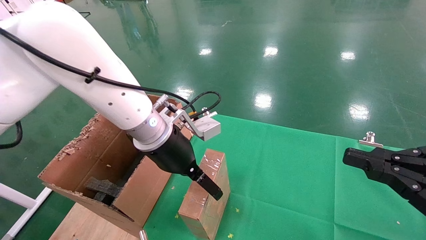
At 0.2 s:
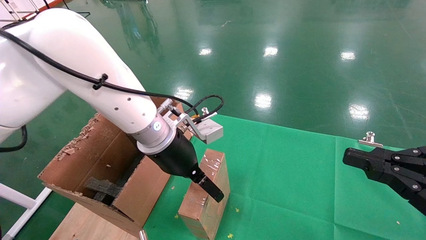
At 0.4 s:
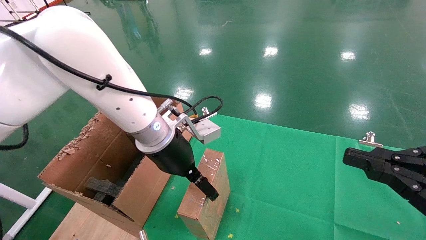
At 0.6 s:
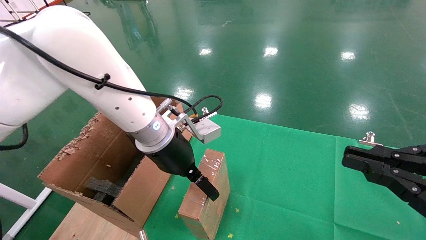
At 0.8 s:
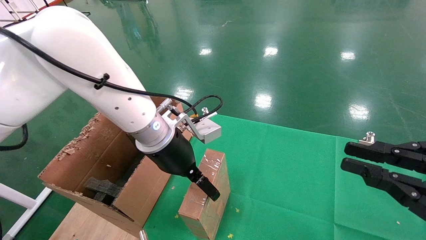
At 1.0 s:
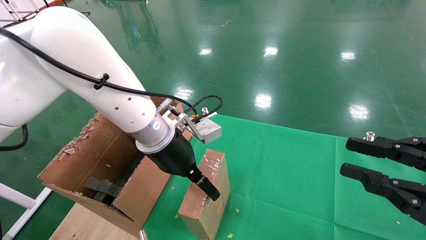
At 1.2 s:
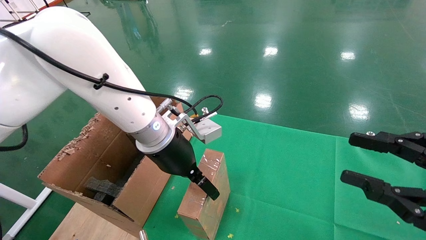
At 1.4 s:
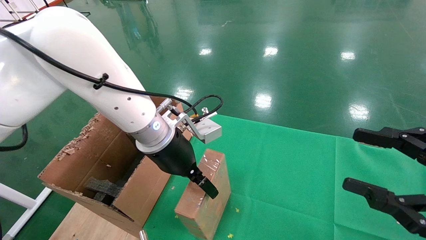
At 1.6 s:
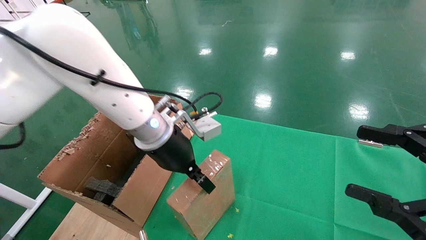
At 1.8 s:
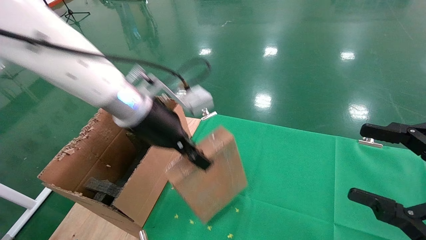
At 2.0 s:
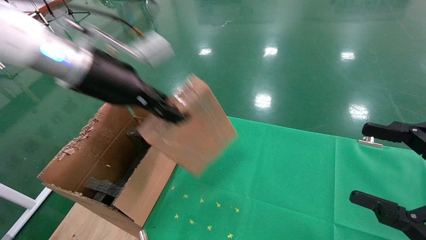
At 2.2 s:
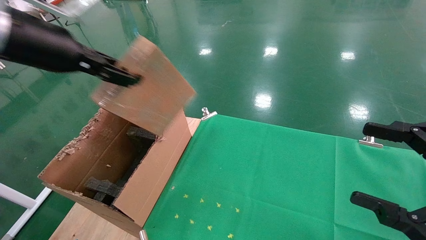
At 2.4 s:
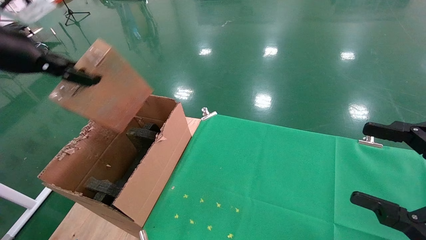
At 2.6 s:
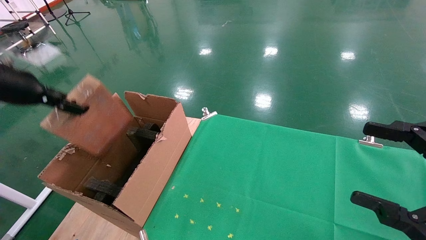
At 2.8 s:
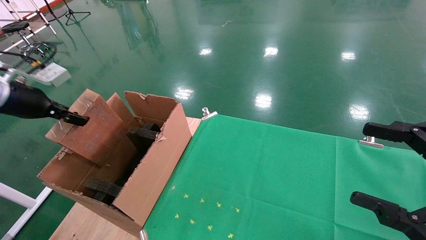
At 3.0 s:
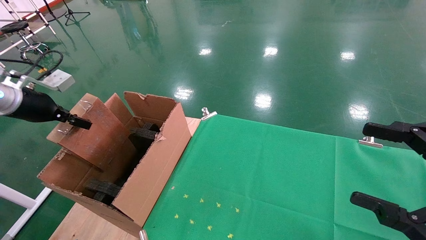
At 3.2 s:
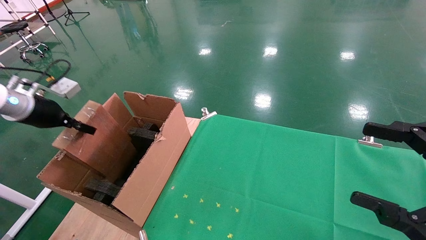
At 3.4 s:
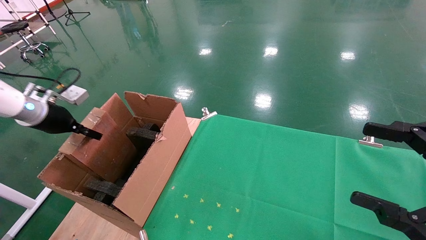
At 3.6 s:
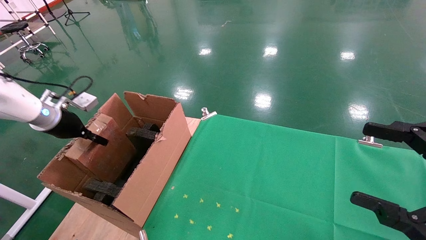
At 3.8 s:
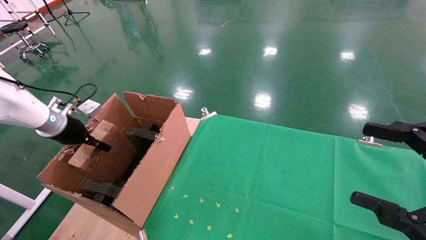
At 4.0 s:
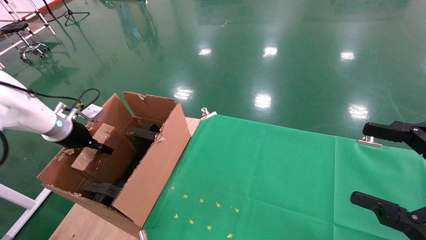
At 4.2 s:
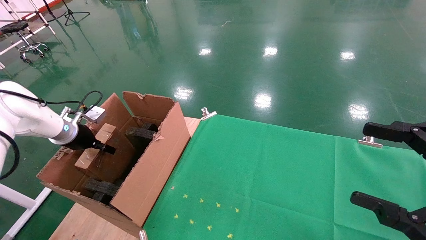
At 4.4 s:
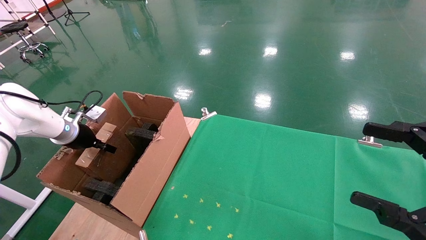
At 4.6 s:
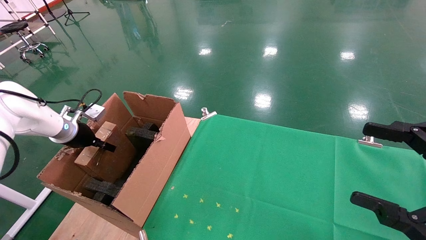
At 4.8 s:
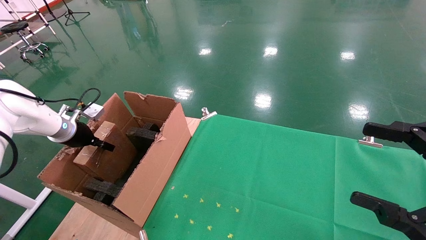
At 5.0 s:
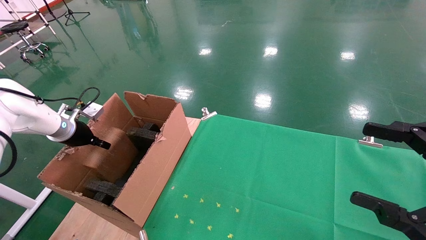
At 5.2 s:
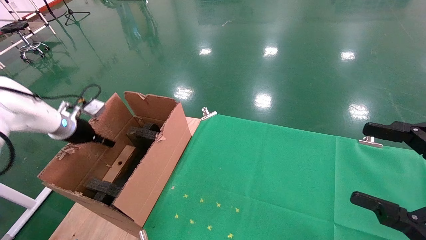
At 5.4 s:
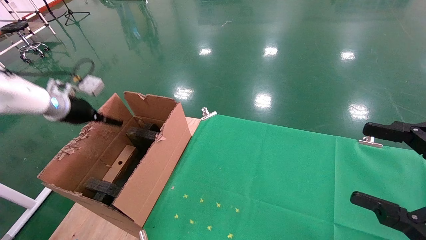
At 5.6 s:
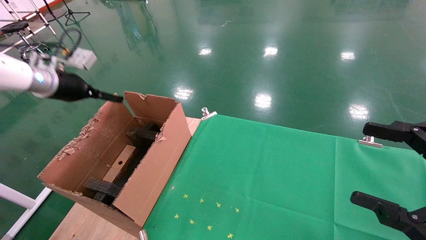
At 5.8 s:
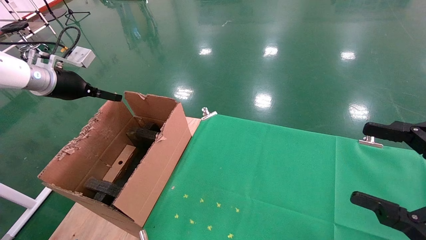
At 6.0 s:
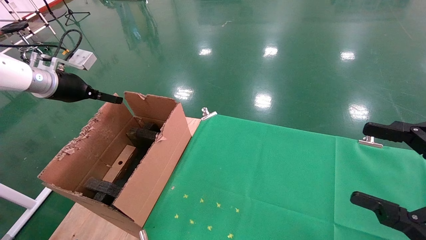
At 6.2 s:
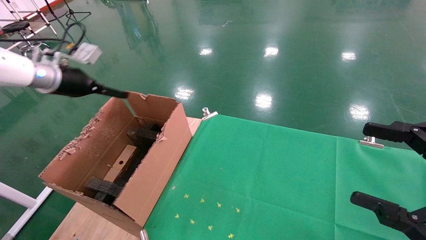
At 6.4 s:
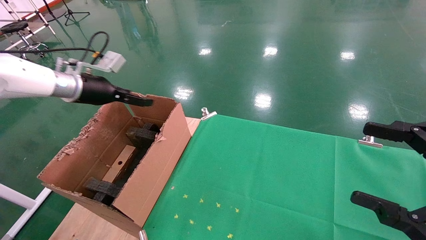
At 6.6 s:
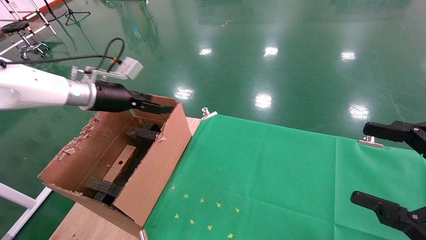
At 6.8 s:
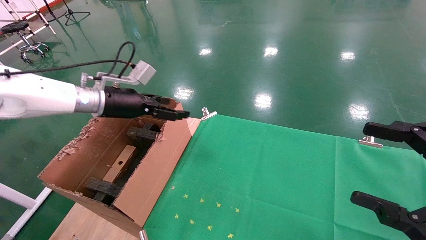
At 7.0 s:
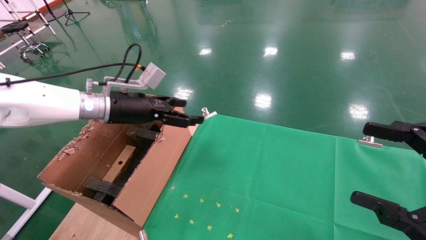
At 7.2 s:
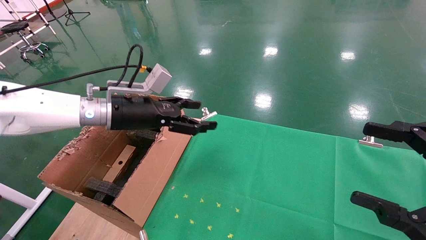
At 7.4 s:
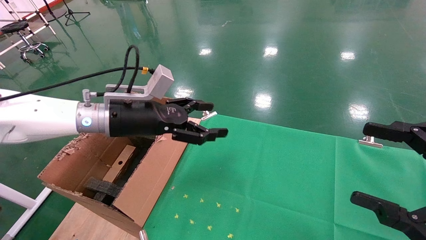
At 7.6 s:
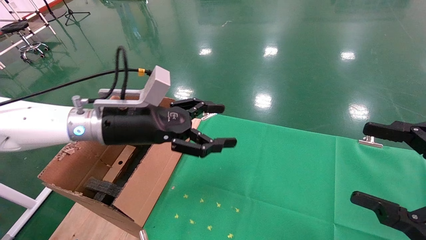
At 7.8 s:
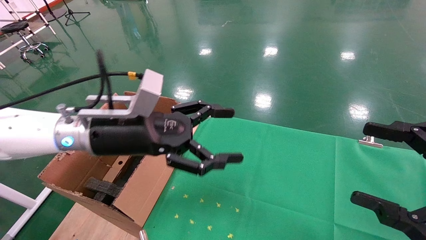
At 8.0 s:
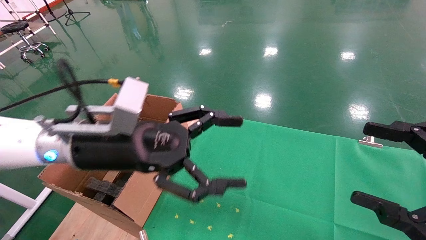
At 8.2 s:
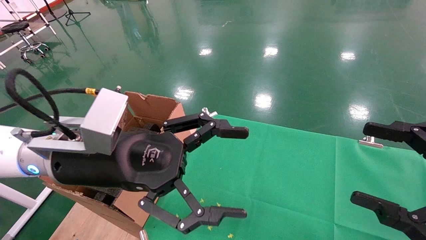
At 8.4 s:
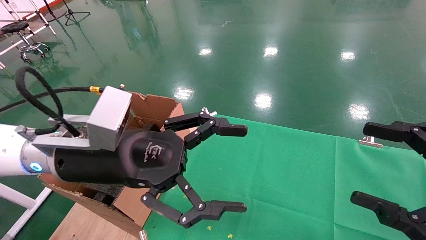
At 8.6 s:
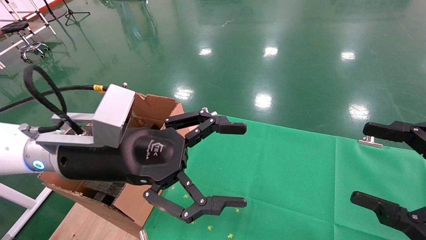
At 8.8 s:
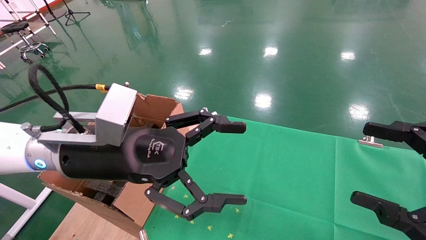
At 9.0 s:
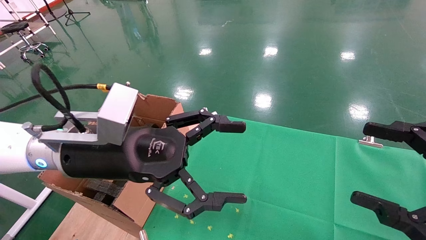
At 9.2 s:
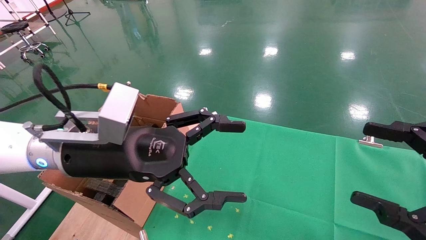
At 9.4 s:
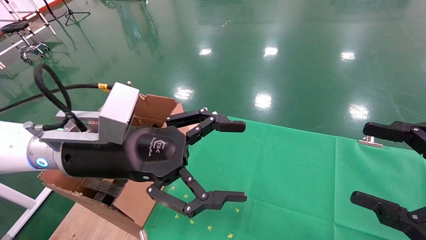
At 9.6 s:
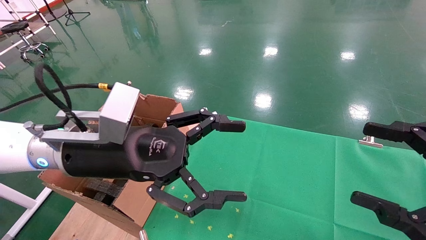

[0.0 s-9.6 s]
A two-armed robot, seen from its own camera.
Task of the whole recording: using a robotic arm to pick up a cardboard box and palace it the carton.
Step, 1.6 to 5.0 s: Place the mouse and the power cord paper box into the container.
0.0 to 1.6 s: The right gripper opens up, while the left gripper closes up.
1.6 to 3.2 s: The left gripper is displaced to the left by approximately 35 cm, and closes up.
3.2 to 4.8 s: The left gripper shifts some 10 cm downward and forward.
4.8 to 6.4 s: The left gripper is displaced upward and to the right by roughly 15 cm, and opens its fingers.
6.4 to 8.0 s: The left gripper moves to the right and backward, roughly 25 cm.
8.0 to 9.6 s: The grippers stay close to where they were, moving slightly.

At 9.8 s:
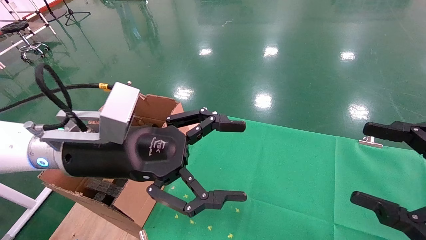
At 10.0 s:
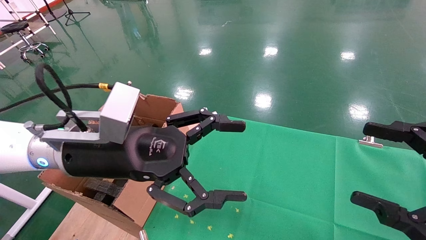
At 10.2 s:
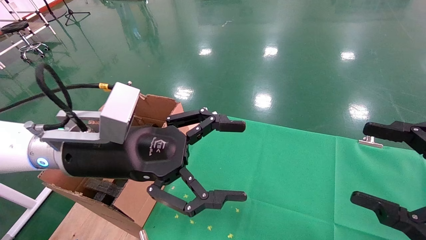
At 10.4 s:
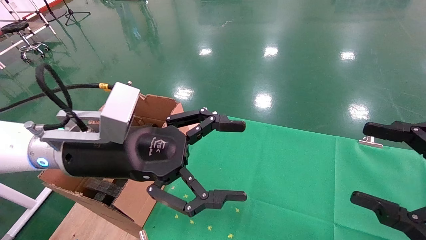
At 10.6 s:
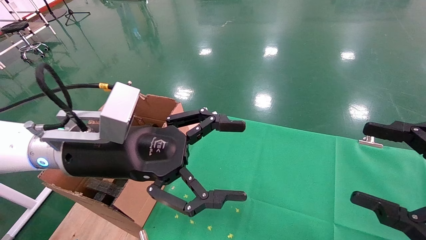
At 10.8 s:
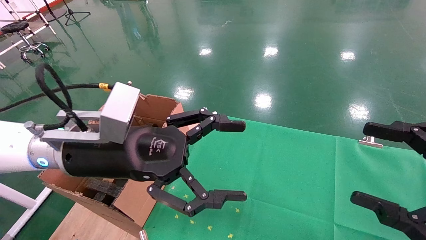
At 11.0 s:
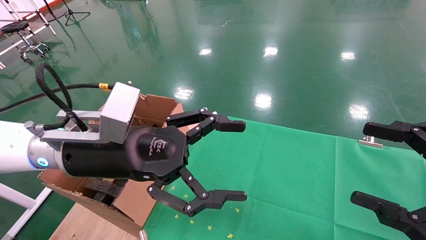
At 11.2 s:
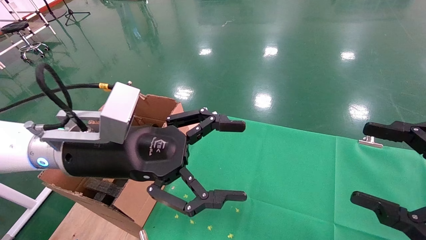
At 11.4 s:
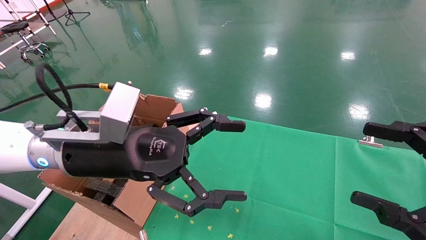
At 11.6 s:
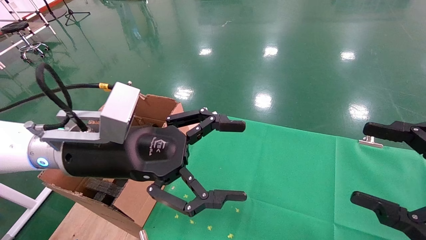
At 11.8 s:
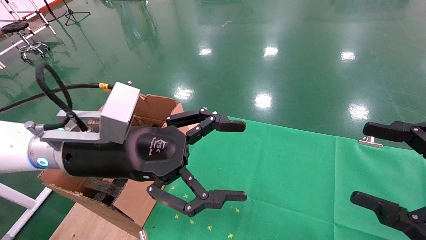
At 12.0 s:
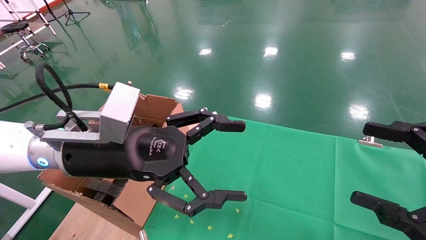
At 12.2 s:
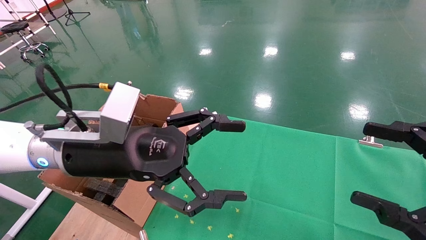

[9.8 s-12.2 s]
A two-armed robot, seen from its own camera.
Task of the whole recording: using a robotic arm to pick up a cardboard box and palace it the carton.
9.8 to 12.2 s: Neither gripper changes place.
